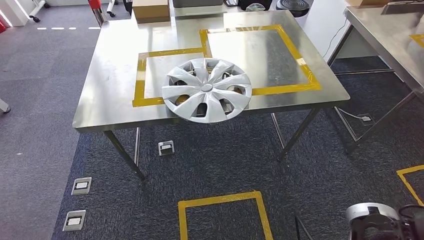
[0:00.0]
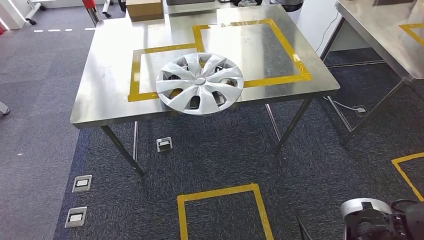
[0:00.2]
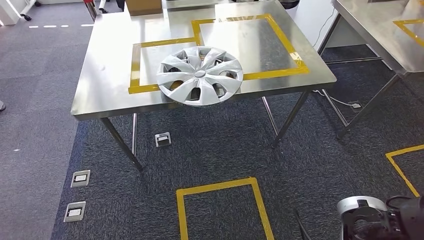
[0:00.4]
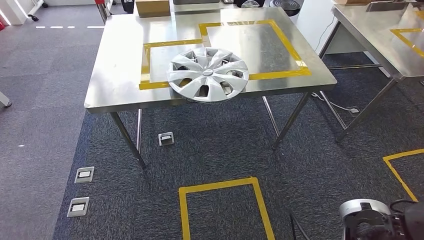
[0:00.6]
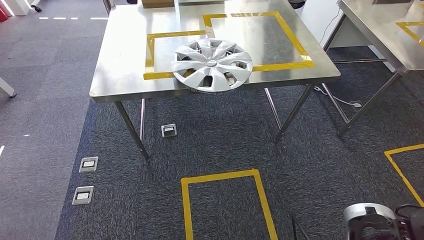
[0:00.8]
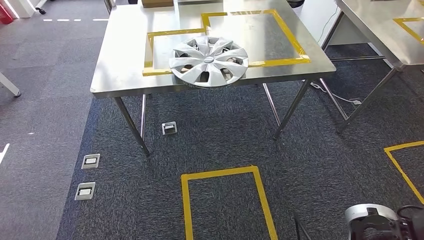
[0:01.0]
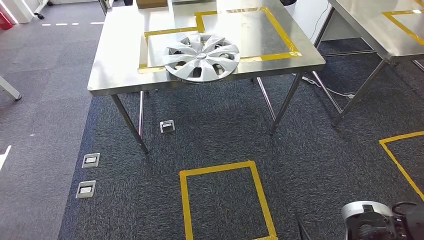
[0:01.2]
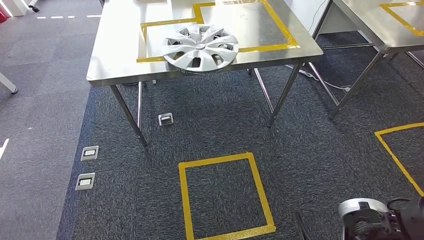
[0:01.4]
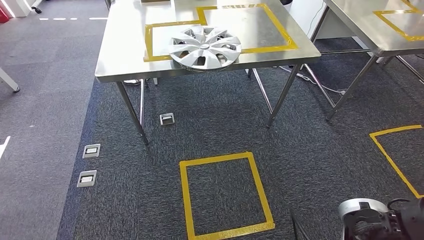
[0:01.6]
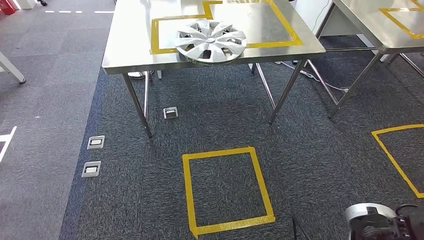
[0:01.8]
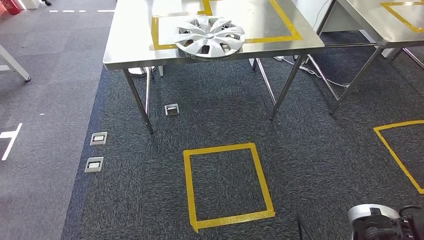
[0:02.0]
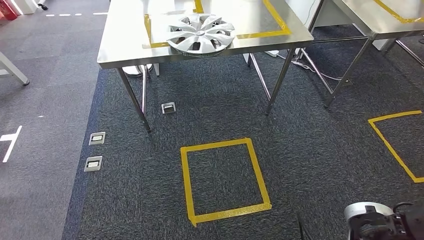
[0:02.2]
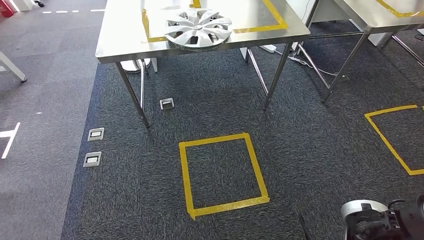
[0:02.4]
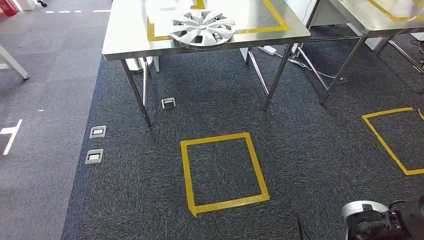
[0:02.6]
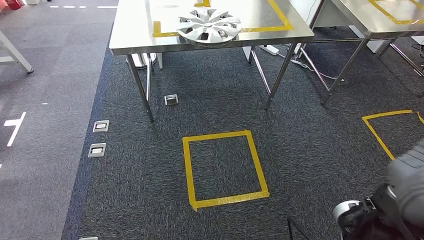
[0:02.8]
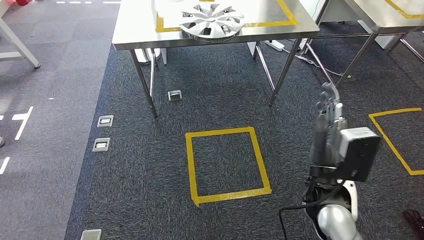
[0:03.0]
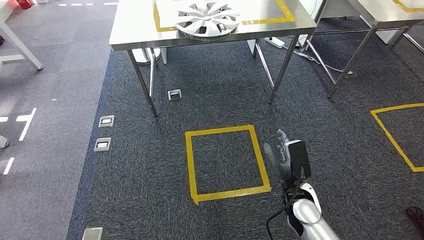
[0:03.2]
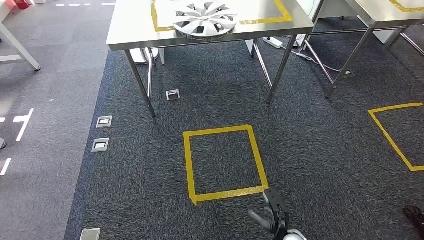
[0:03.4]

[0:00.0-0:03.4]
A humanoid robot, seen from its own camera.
Step, 0:00.0 to 0:03.2: Return to the initial position at the shelf.
